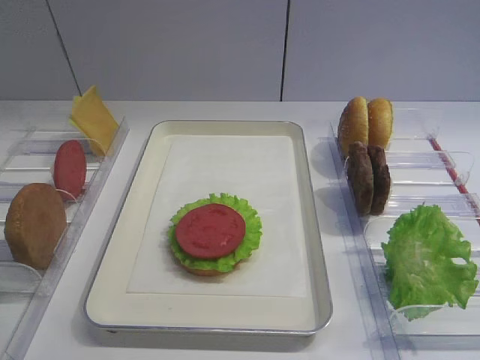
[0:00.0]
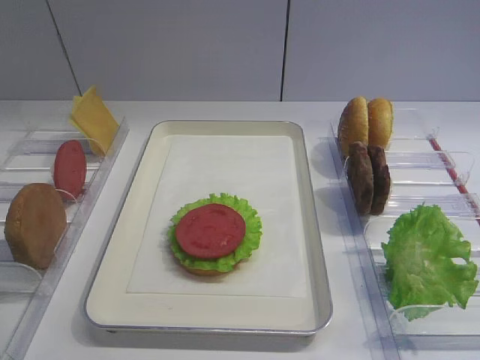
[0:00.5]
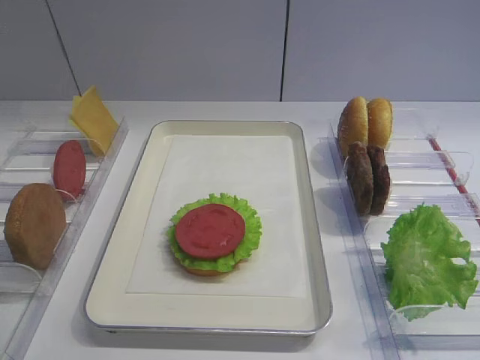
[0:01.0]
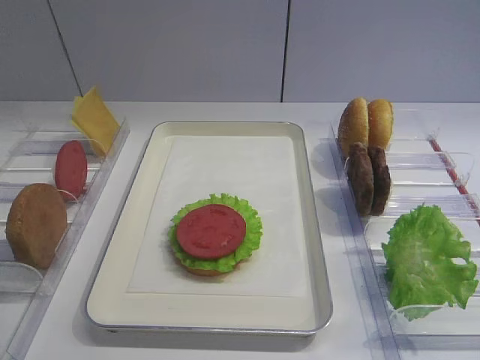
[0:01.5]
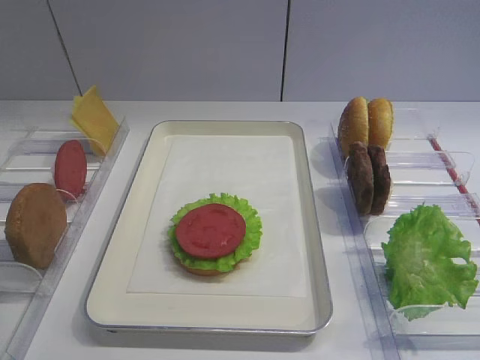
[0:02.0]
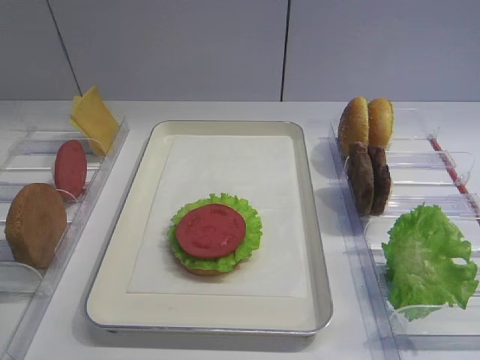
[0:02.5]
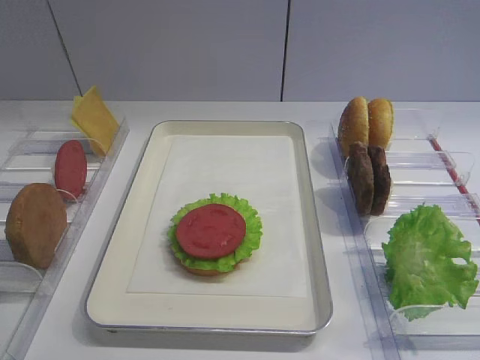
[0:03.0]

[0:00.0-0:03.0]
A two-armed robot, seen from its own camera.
0:01.5 to 0:03.0: Both grippers stay put.

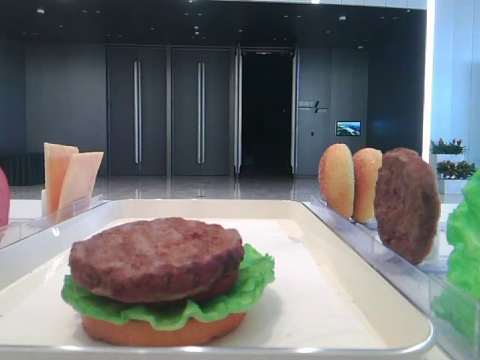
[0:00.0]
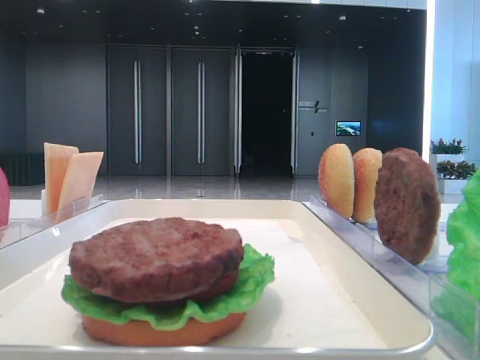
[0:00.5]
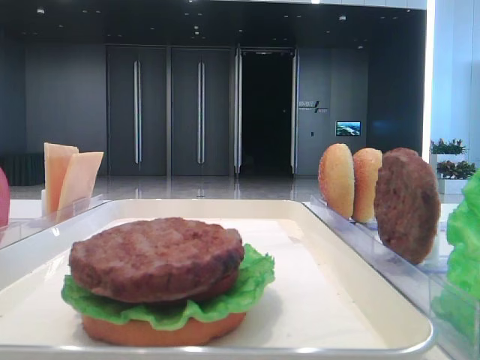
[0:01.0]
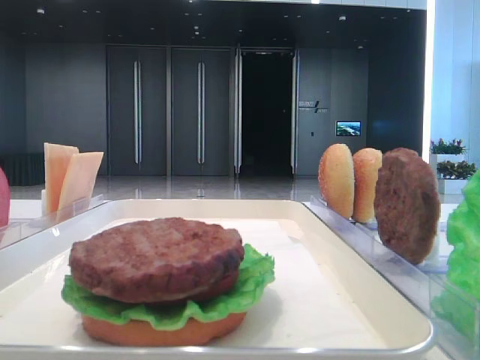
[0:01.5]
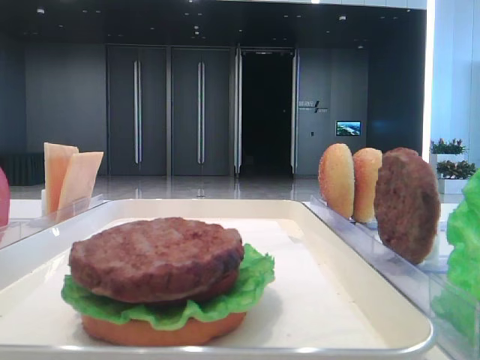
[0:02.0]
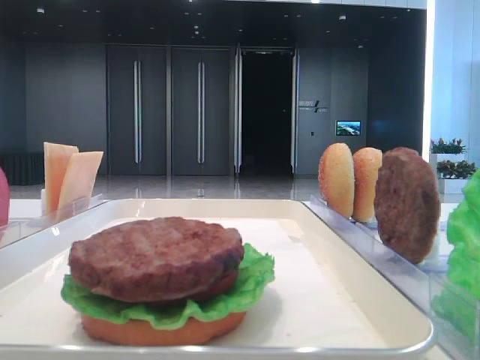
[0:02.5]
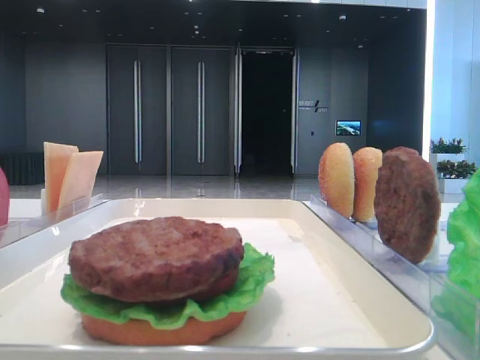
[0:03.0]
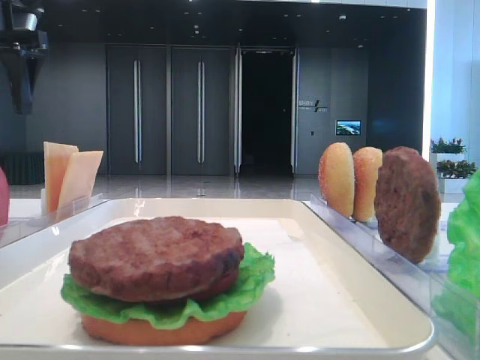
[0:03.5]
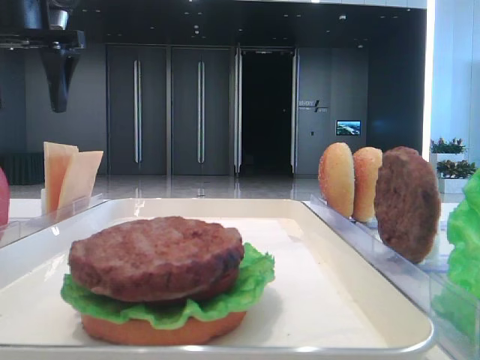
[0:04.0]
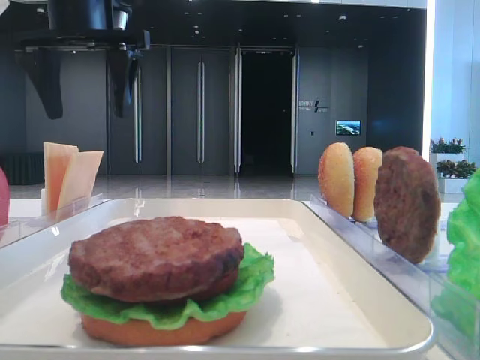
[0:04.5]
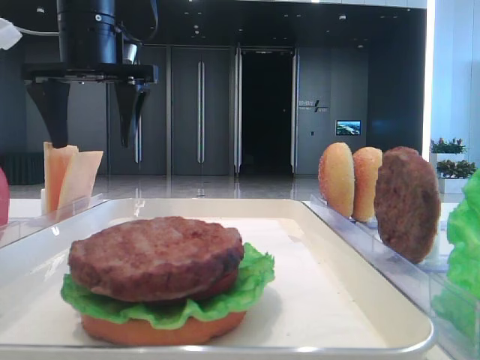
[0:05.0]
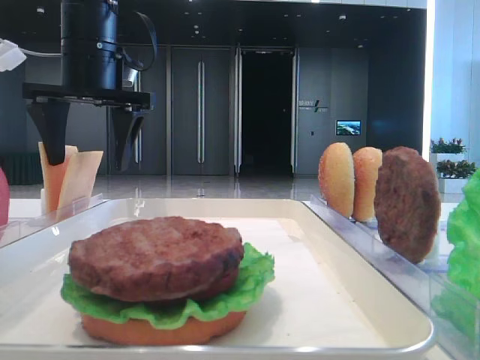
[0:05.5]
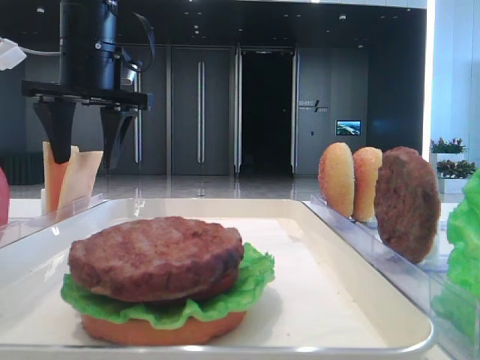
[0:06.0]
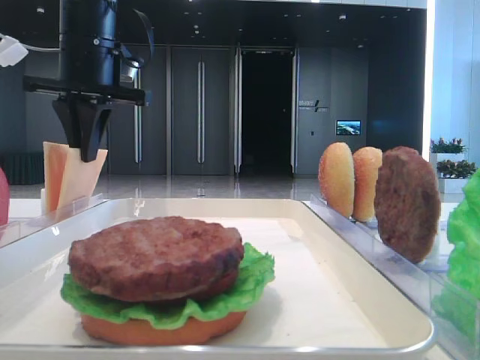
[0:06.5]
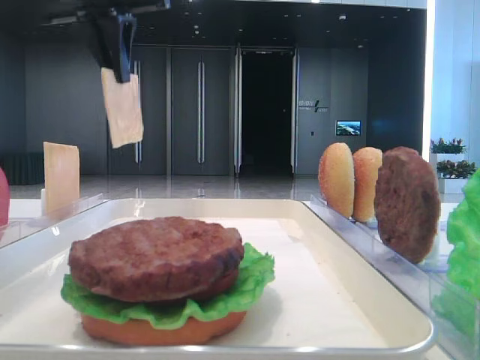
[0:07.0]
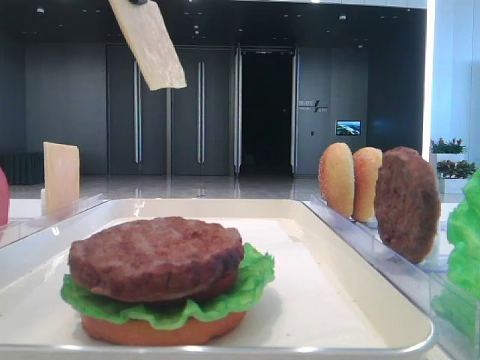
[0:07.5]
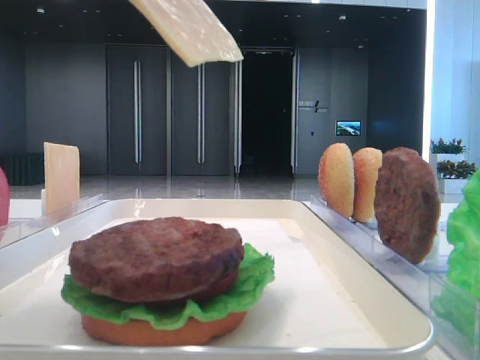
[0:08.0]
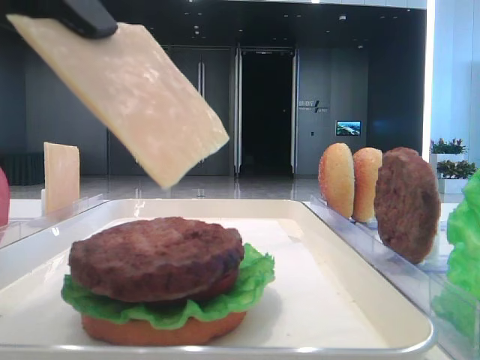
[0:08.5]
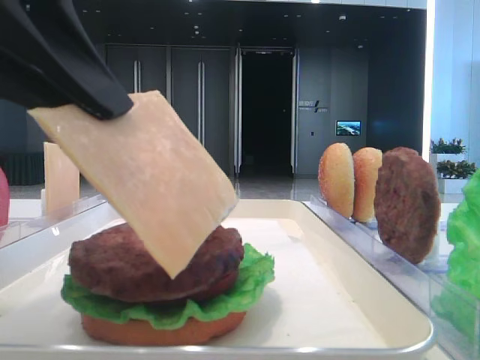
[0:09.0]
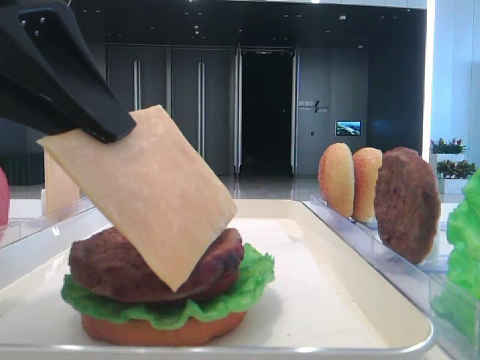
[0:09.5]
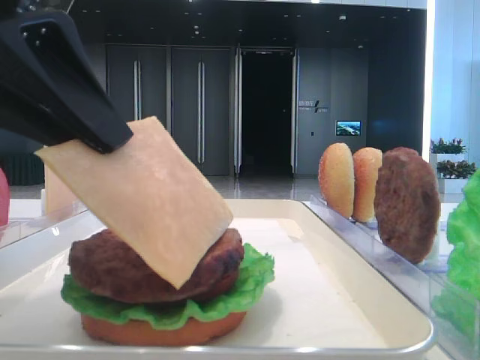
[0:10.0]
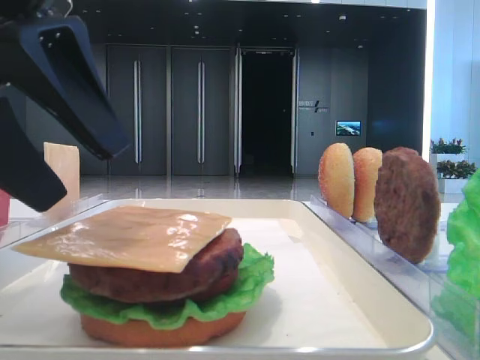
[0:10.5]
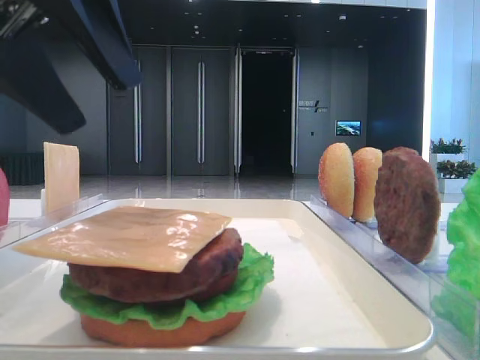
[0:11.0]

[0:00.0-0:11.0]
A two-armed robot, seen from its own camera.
Step, 0:00.0 to 0:06.0: Pick up the cheese slice with the left hand.
Step, 0:06.5 to 0:10.0: Place the cheese slice on the patty with the left hand.
0:02.0 to 0:03.5: The left gripper goes roughly 35 cm forward.
0:03.5 to 0:05.5: The left gripper heads to the right and downward, covering about 15 cm.
0:05.5 to 0:07.5: The left gripper is displaced backward and upward by roughly 20 cm, and closes up.
0:07.5 to 0:09.0: The left gripper shifts roughly 20 cm downward and backward.
0:09.0 to 0:11.0: The left gripper heads forward, covering about 5 cm, and opens up.
